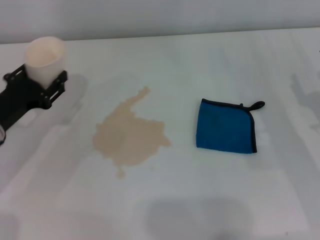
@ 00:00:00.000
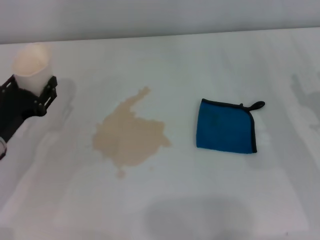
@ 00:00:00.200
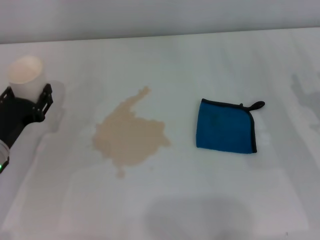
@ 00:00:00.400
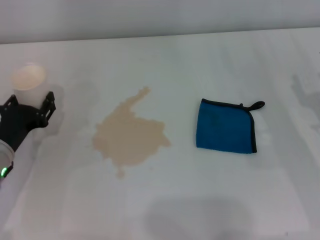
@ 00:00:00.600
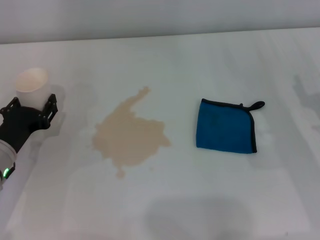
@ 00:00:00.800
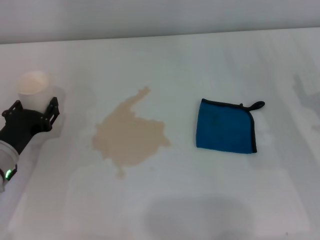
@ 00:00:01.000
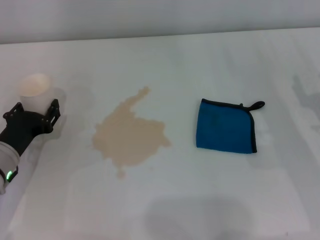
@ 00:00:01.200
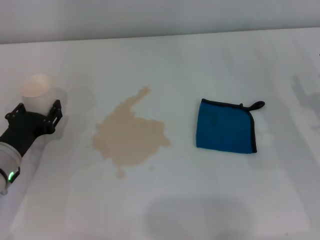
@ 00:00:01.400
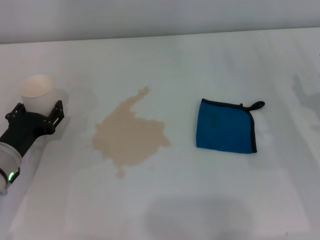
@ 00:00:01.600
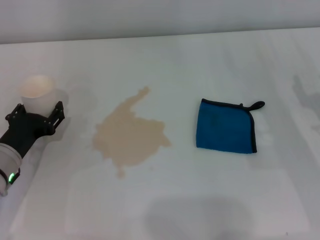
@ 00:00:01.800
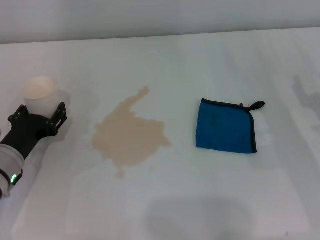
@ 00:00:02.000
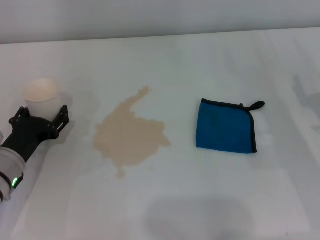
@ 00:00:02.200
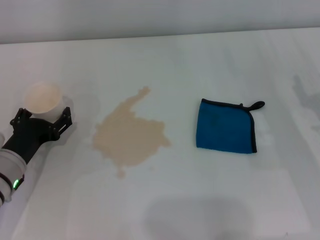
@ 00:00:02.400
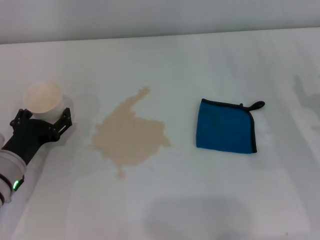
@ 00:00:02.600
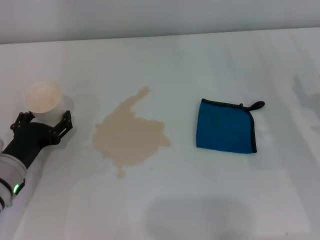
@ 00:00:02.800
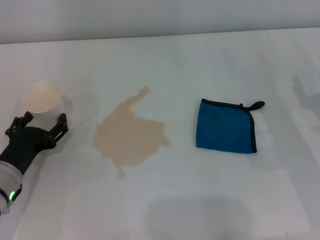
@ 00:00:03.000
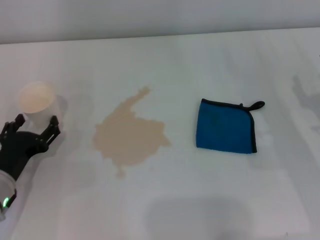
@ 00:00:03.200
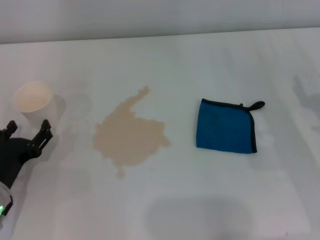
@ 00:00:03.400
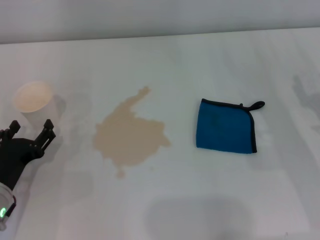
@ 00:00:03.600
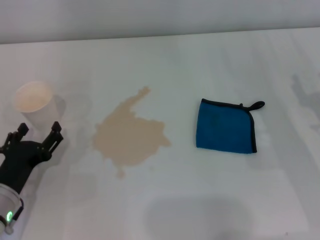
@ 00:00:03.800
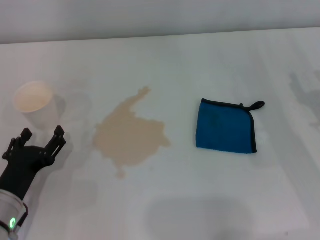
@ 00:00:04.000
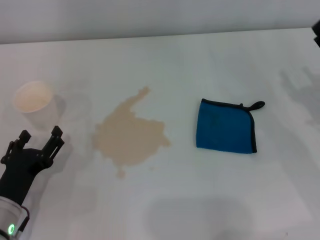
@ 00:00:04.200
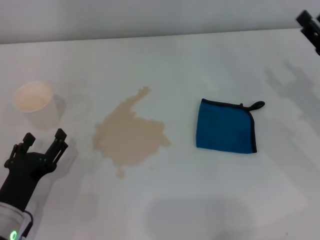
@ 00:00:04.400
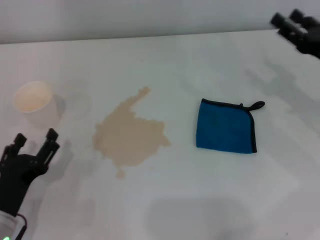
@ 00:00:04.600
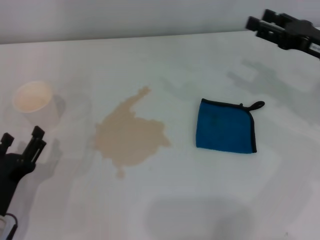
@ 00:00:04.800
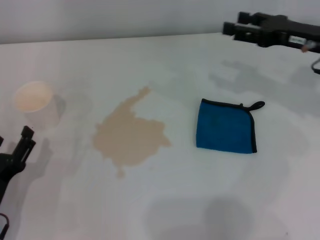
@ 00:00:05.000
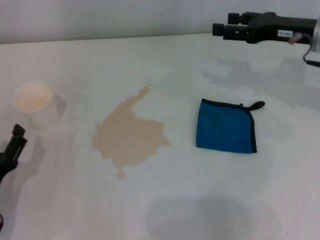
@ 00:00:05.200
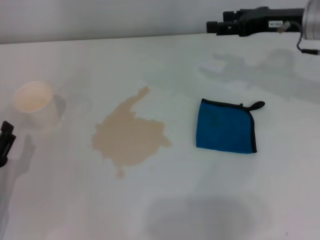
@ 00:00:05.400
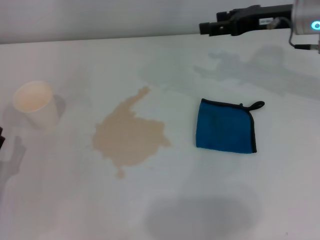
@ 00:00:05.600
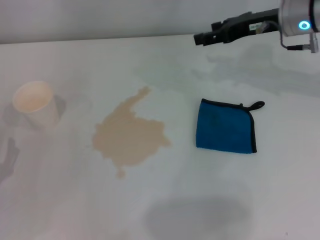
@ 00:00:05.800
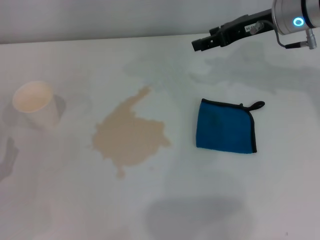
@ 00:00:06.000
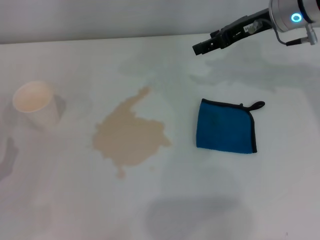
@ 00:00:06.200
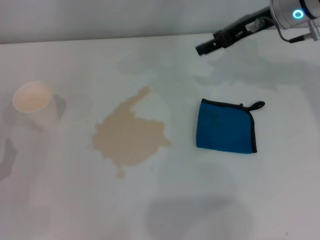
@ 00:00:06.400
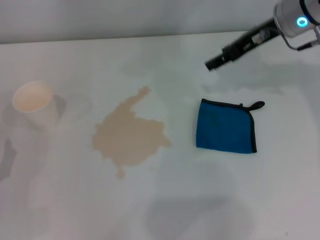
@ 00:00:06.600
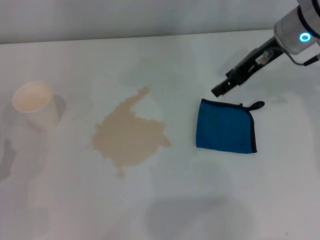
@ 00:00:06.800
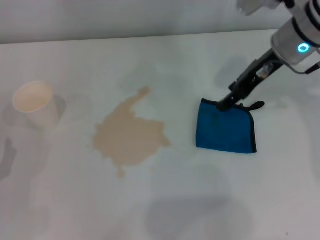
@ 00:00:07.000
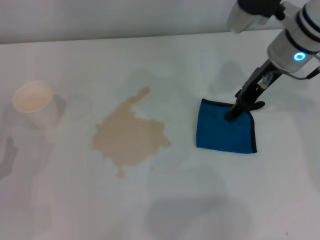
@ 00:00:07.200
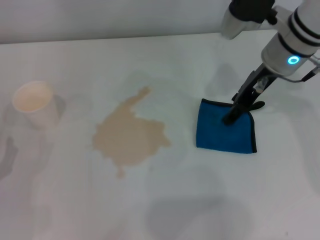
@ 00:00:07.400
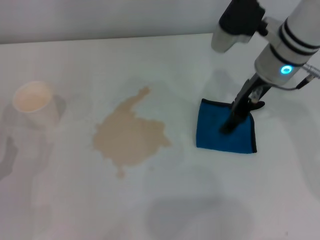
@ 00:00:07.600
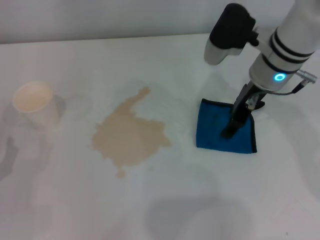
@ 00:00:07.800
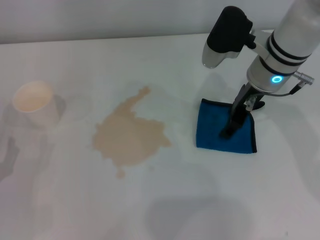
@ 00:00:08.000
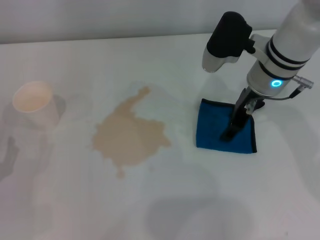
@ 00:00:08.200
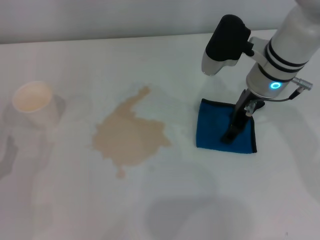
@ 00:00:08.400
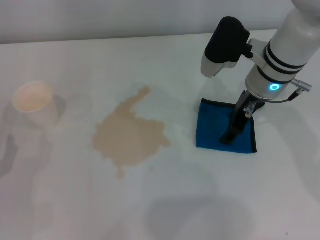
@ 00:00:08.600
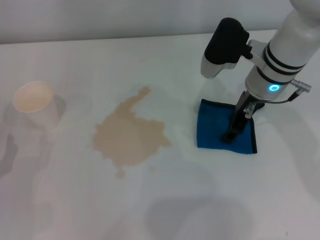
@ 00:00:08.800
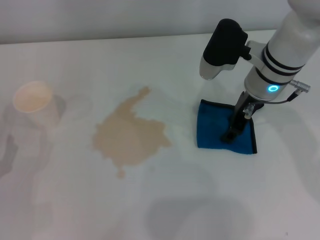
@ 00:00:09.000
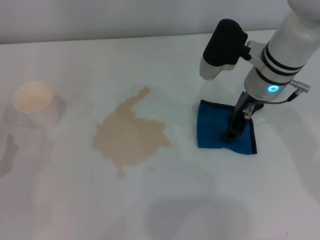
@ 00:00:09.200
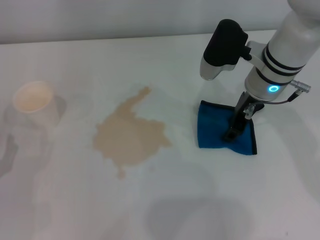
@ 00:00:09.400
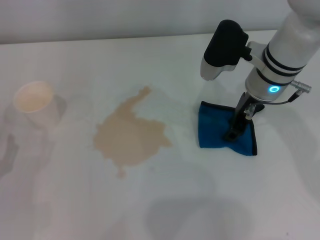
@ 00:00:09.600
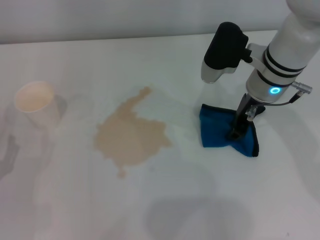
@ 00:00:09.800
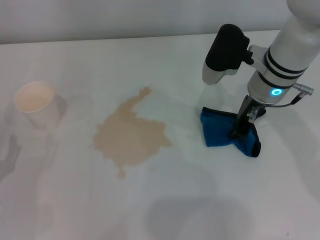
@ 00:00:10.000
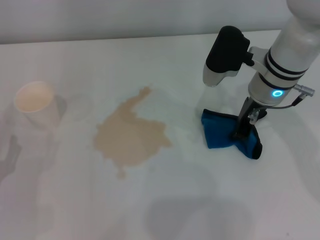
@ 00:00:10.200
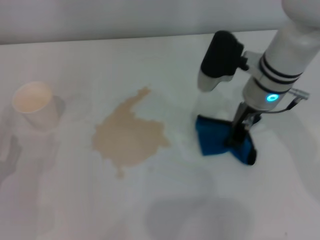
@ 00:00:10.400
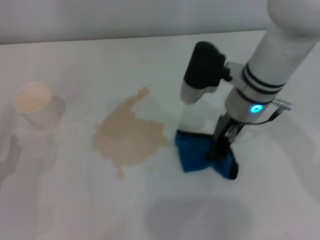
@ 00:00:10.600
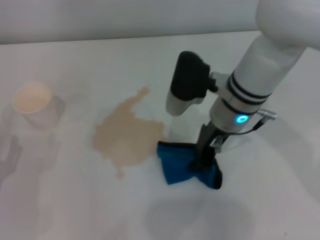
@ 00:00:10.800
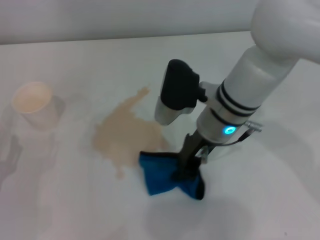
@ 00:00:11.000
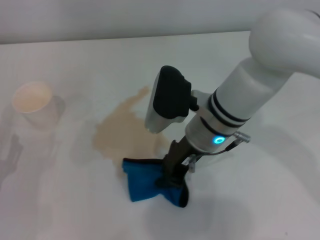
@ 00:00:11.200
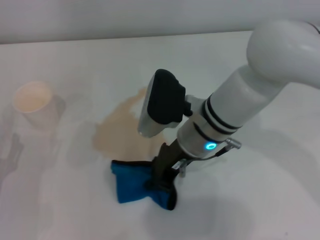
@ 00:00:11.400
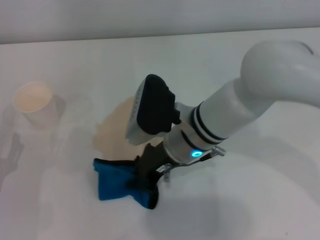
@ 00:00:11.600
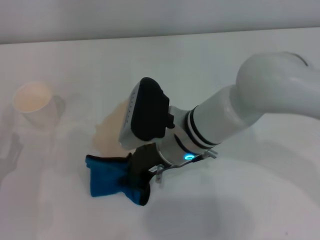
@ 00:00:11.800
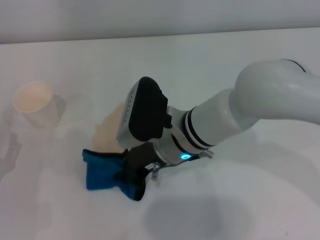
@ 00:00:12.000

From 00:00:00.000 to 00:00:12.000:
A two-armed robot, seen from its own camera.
Step, from 00:00:00.000 to 00:00:02.400: Stand the paper cup upright with the left gripper.
Step, from 00:00:02.600 to 00:00:10.000: Grasp the rag with the right gripper.
From 00:00:00.000 to 00:00:01.600: The left gripper shifts approximately 5 cm downward.
From 00:00:01.600 to 00:00:03.000: The left gripper opens its fingers.
From 00:00:03.000 to 00:00:04.400: The left gripper travels backward by some 5 cm.
From 00:00:04.400 to 00:00:06.000: The right gripper shifts about 20 cm forward, upward and to the left. The left gripper heads to the left, covering about 5 cm.
From 00:00:06.000 to 00:00:07.600: The right gripper shifts about 5 cm to the left.
From 00:00:07.600 to 00:00:09.000: The grippers make only small movements.
From 00:00:09.000 to 00:00:10.400: The right gripper closes up.
From 00:00:10.400 to 00:00:12.000: The right gripper moves to the left and backward, roughly 15 cm.

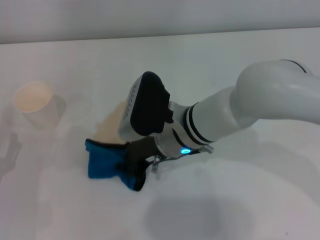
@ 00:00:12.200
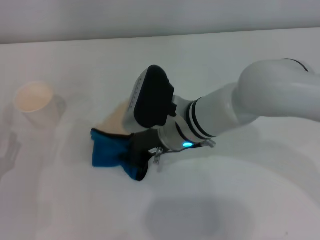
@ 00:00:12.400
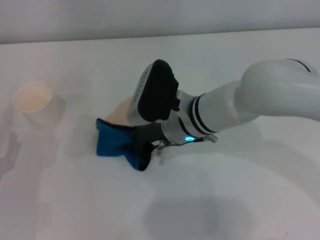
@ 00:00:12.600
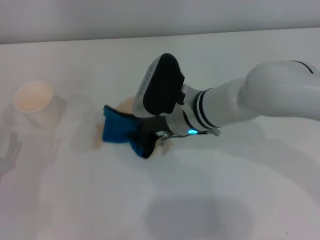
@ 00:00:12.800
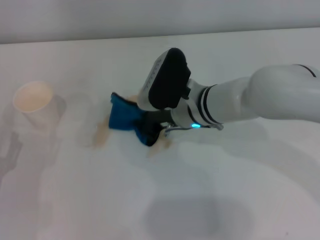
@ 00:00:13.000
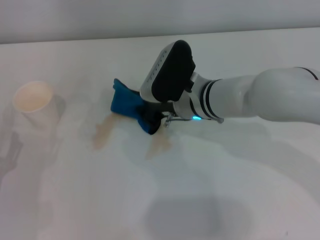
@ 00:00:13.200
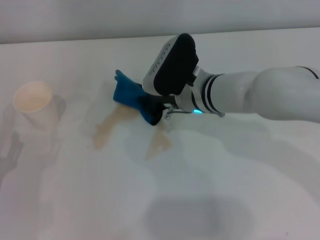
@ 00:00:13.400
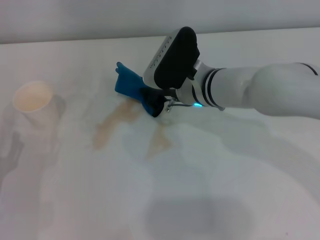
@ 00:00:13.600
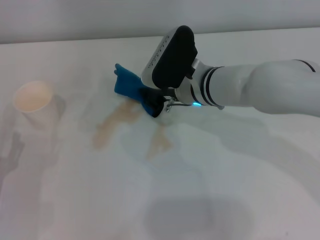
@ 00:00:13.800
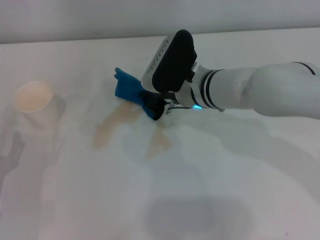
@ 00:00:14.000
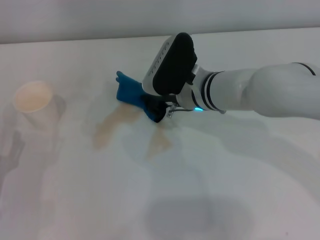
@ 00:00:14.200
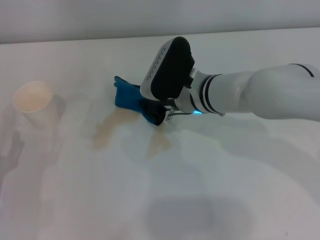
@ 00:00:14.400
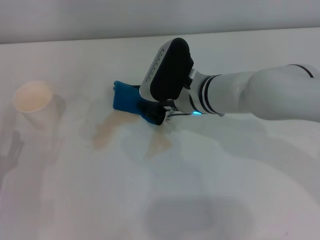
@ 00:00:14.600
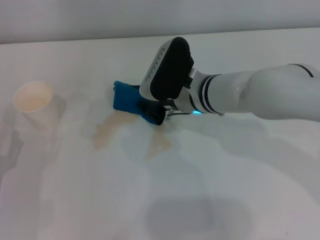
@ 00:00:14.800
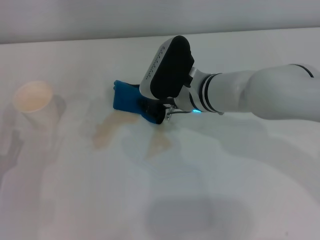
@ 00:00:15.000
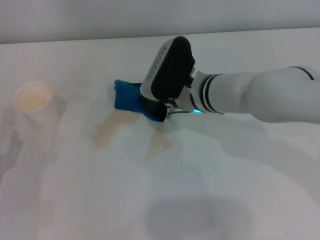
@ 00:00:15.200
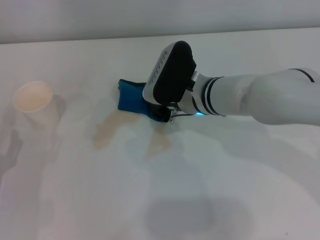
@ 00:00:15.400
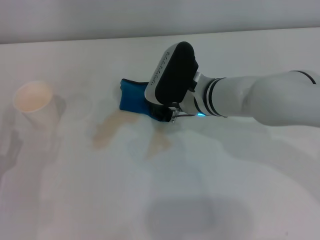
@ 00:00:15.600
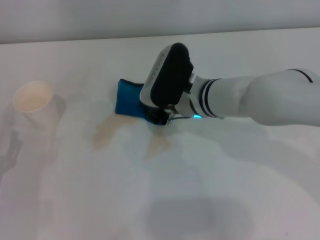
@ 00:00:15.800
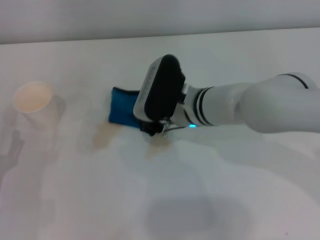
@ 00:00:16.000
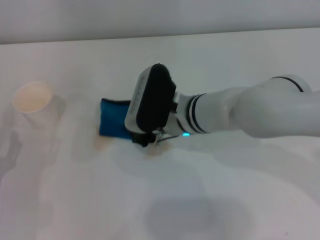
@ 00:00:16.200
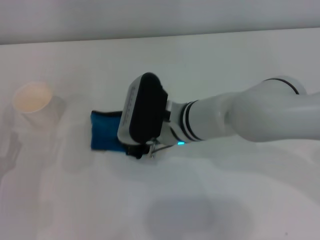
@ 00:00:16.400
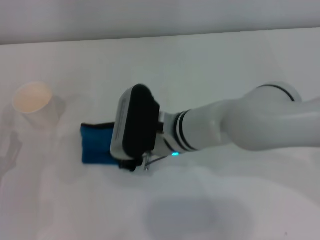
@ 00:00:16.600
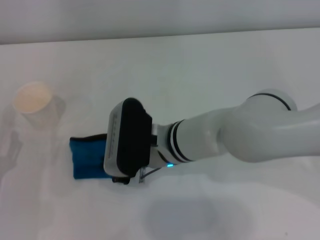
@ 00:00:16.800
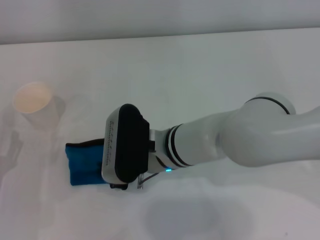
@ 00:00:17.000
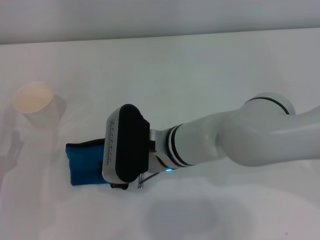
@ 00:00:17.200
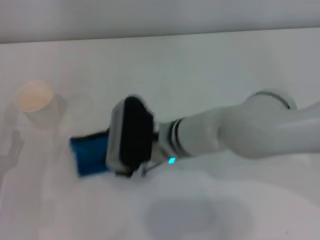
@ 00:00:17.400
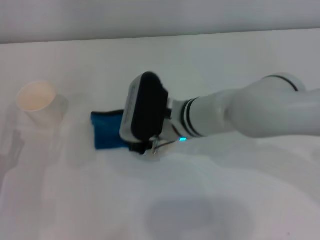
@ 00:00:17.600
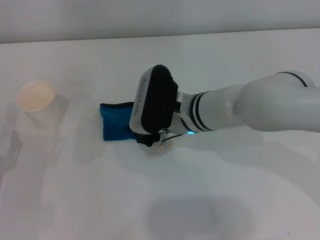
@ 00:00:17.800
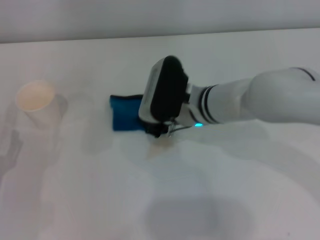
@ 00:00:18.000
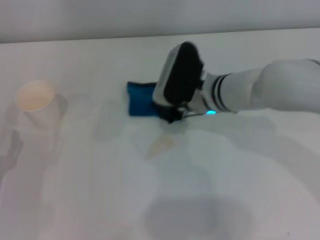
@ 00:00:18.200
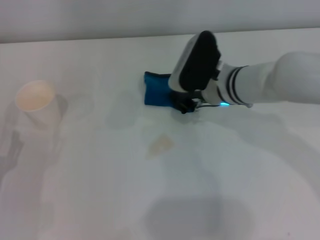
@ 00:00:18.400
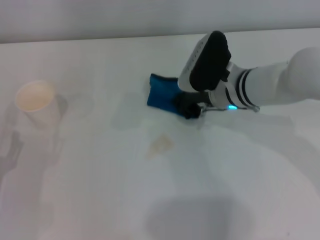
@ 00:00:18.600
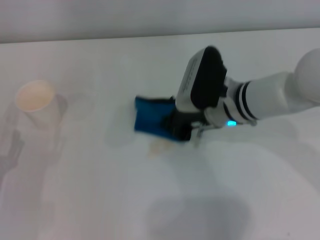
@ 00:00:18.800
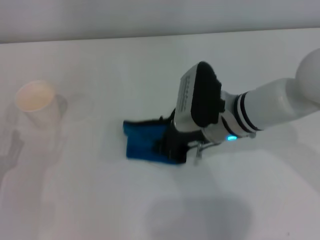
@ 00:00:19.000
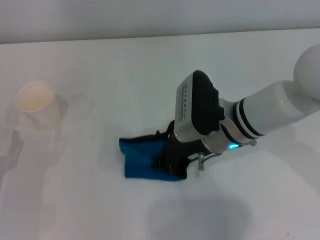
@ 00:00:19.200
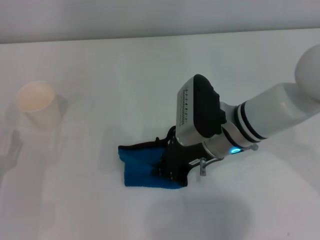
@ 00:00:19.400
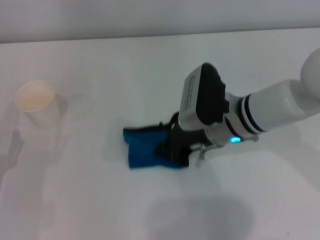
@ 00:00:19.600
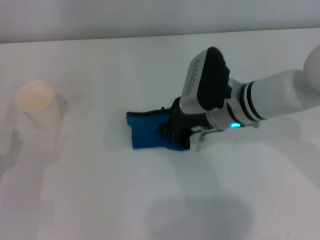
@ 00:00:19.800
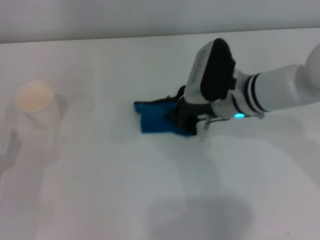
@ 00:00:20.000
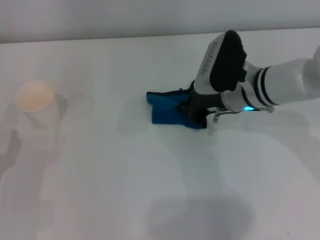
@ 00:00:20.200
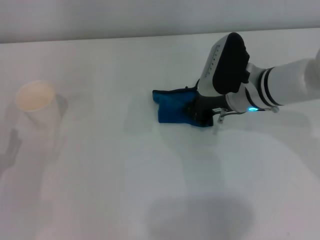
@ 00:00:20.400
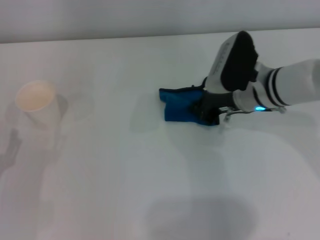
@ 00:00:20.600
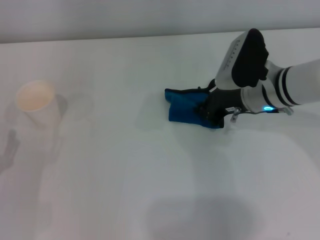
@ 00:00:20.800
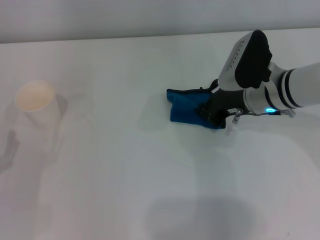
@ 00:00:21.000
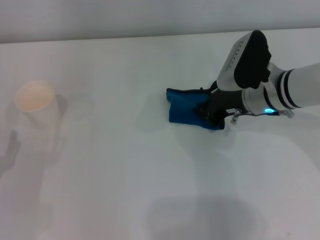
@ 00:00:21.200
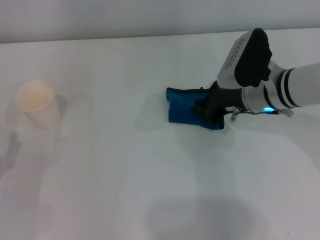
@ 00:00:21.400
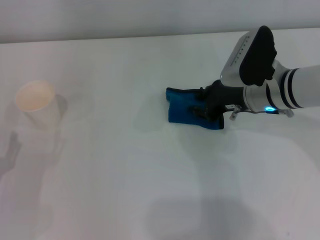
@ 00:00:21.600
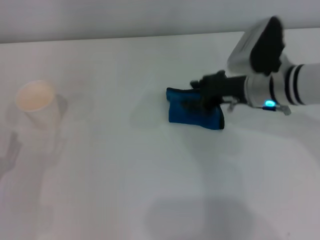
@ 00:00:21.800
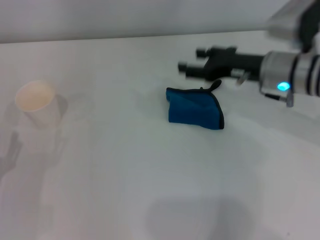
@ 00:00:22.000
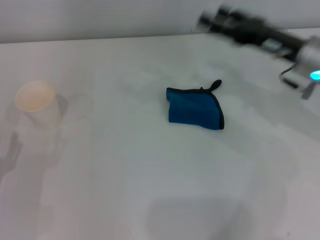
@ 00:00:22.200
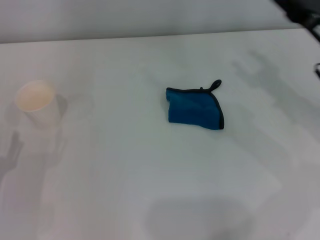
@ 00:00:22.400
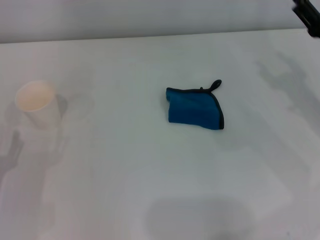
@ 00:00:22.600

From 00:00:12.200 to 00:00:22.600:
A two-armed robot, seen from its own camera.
Step, from 00:00:12.200 to 00:00:20.200: Wipe the stains off the table with the right gripper.
Step, from 00:00:20.600 to 00:00:21.000: Place the rag on the table with the right gripper.
From 00:00:12.200 to 00:00:13.600: The right gripper travels forward by roughly 5 cm.
From 00:00:13.600 to 00:00:15.200: There are only small adjustments of the grippers.
From 00:00:15.200 to 00:00:16.600: The right gripper moves backward, some 5 cm.
From 00:00:16.600 to 00:00:18.200: The right gripper moves to the right and forward, approximately 10 cm.
From 00:00:18.200 to 00:00:19.600: The right gripper ends up roughly 5 cm from where it was.
From 00:00:19.600 to 00:00:21.200: The right gripper travels to the right by some 5 cm.
From 00:00:21.200 to 00:00:22.600: The right gripper shifts roughly 15 cm to the right and backward, and opens its fingers.
